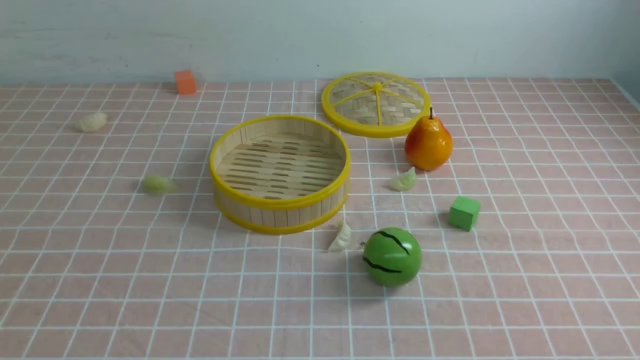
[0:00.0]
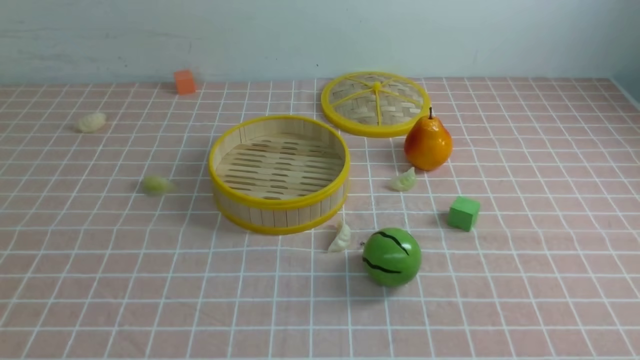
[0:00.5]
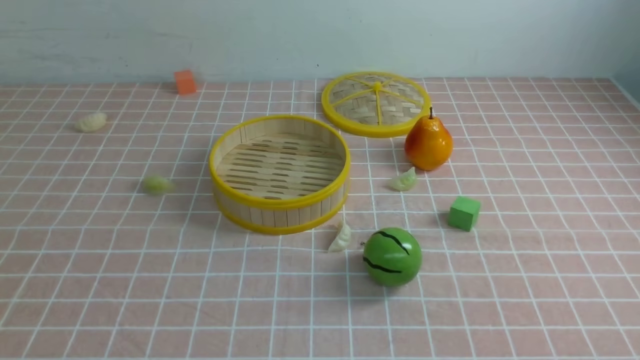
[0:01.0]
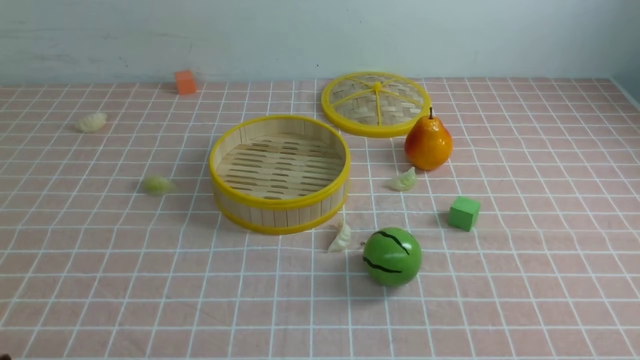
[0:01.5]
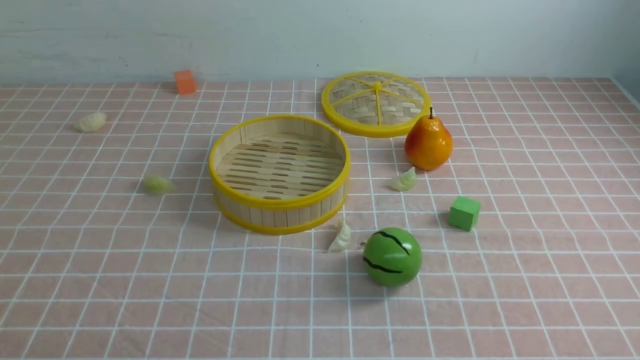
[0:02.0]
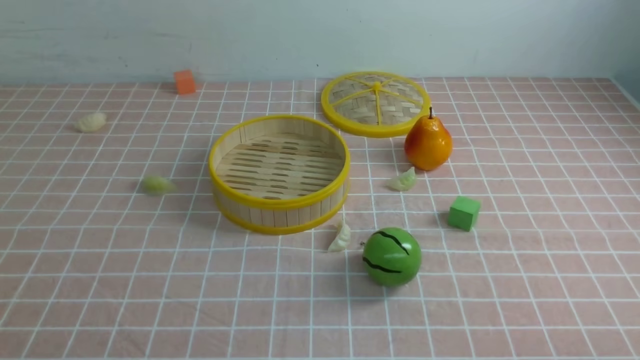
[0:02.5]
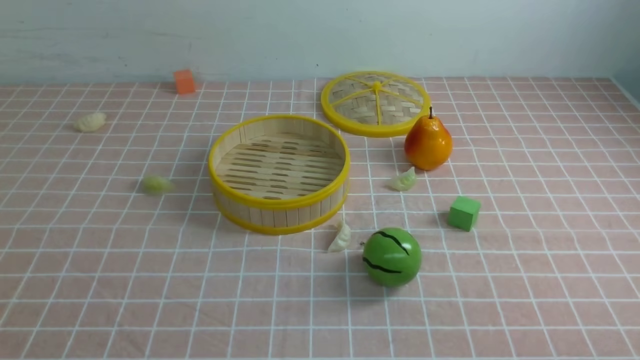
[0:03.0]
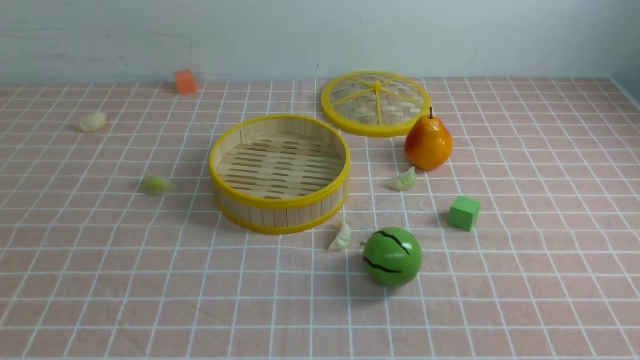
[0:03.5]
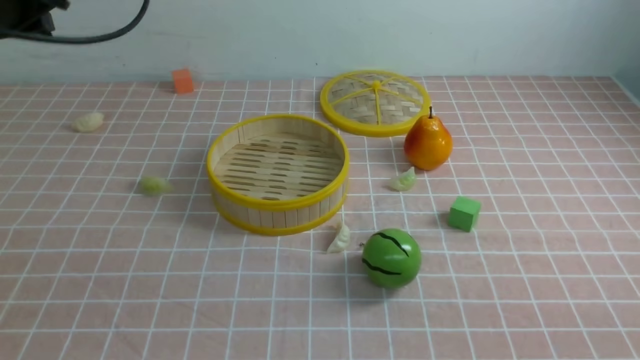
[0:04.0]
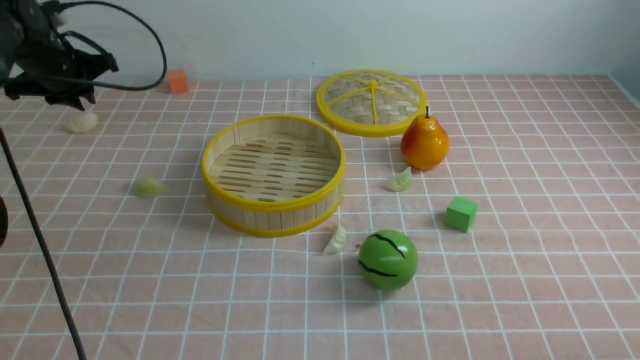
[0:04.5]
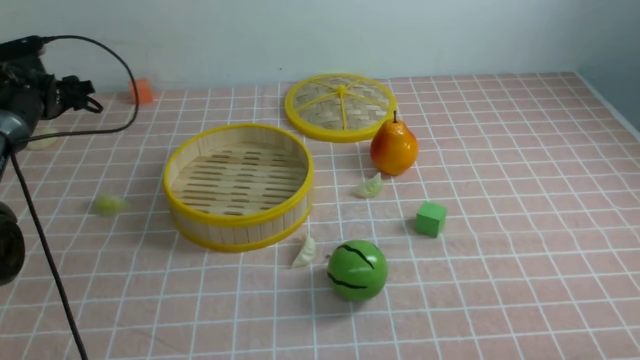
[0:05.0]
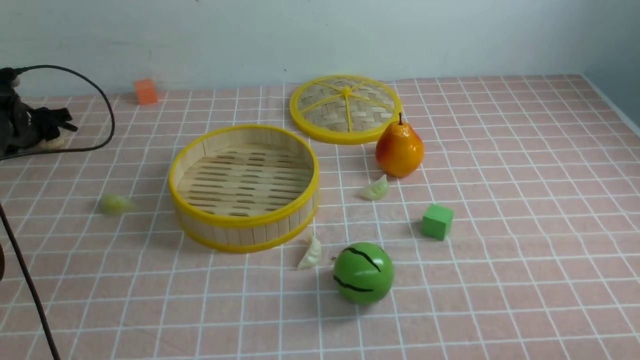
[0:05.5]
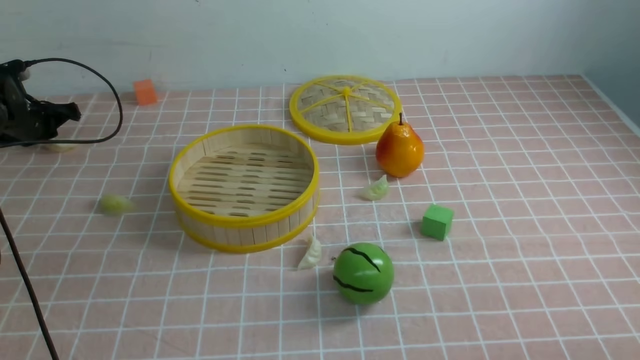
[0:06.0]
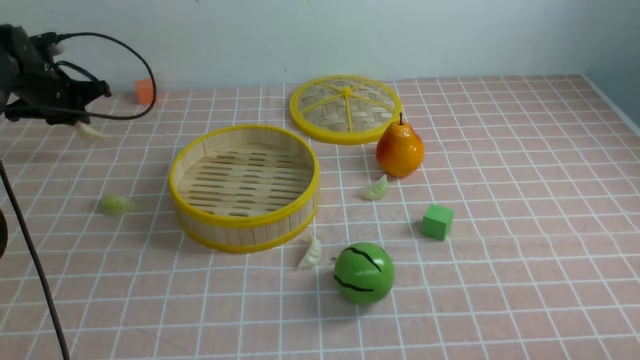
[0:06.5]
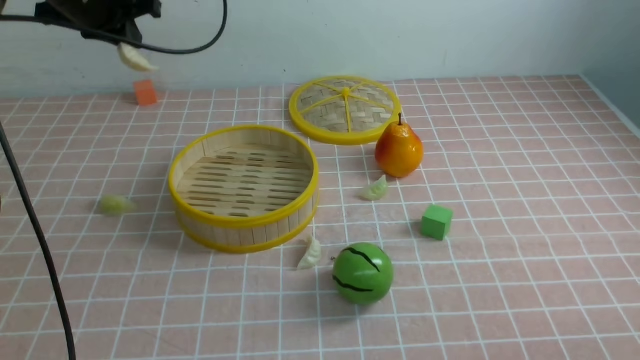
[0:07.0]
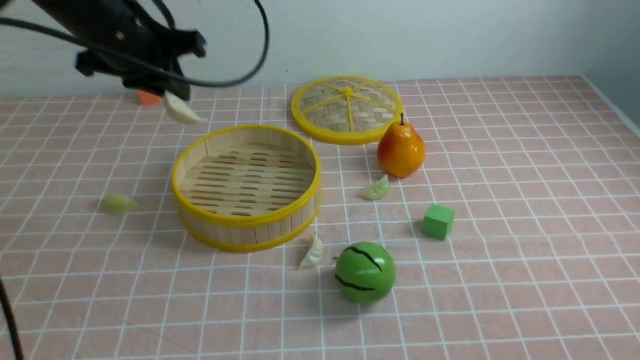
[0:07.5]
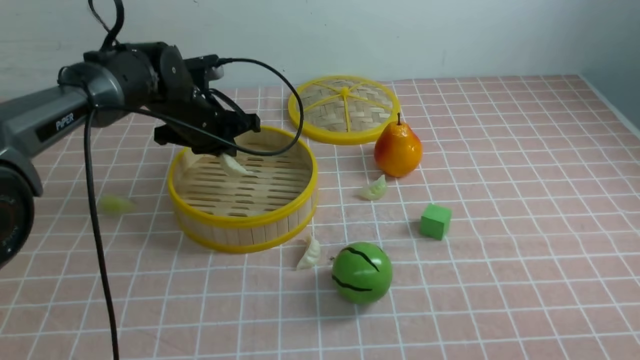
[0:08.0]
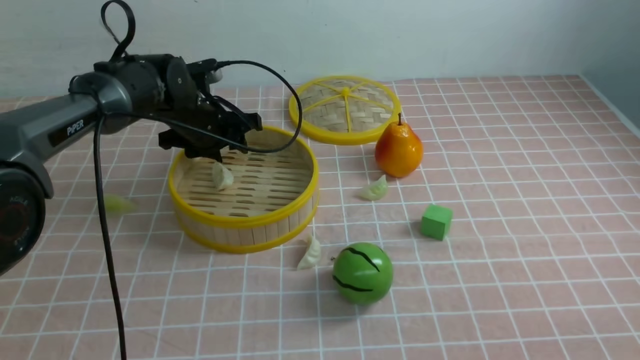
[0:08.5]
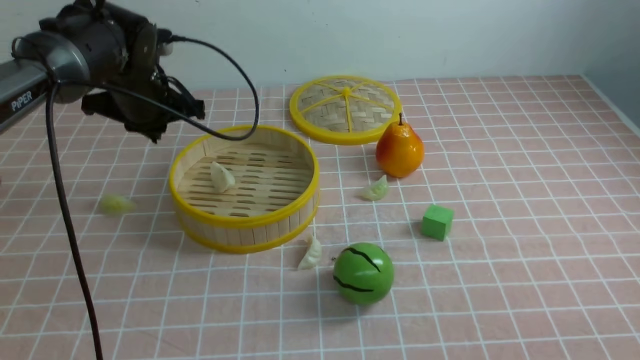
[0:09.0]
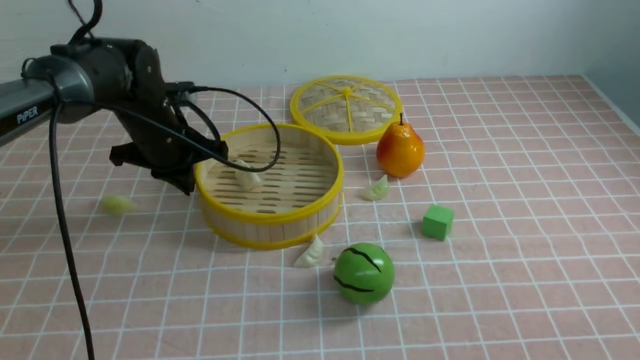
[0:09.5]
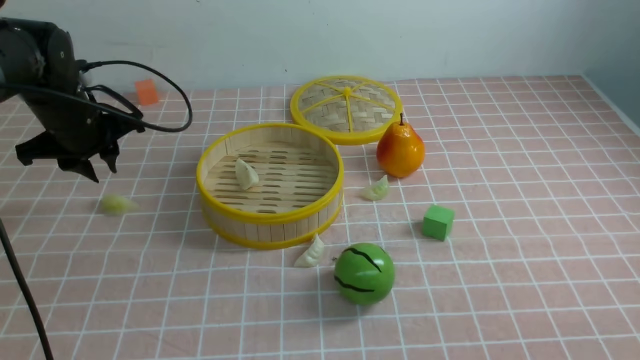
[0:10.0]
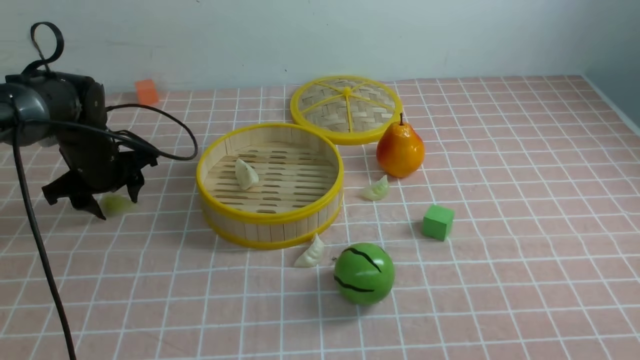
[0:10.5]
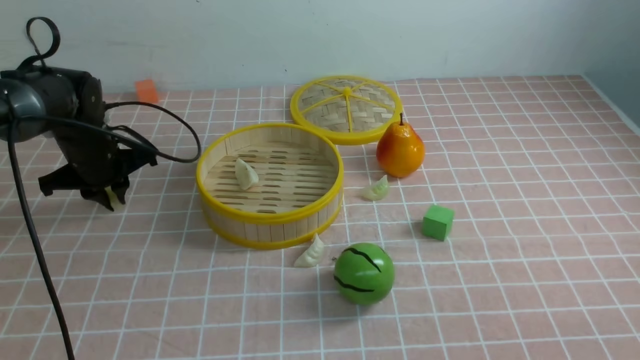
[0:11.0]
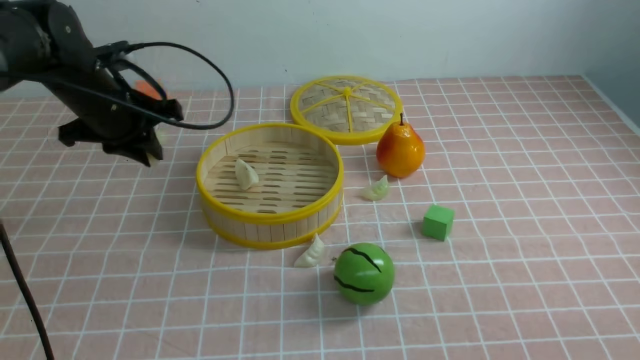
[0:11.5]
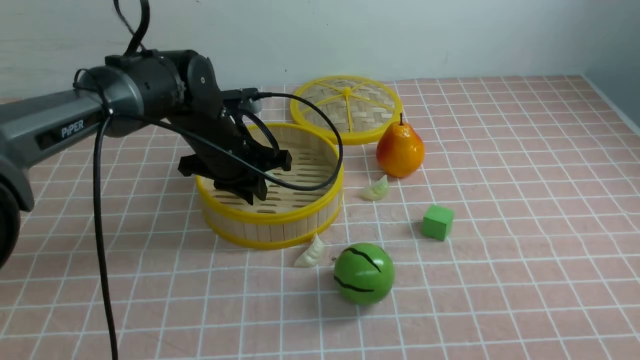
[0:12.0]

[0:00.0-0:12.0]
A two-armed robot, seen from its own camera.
Task of the whole recording: put the dumplings into the steamer on the table with the pink tablecloth.
Step, 0:00.0 to 0:06.0: use the left arm to grab a dumpling.
Step, 0:06.5 to 0:08.0: use the left arm to put the dumpling into the steamer.
Step, 0:08.5 to 0:11.0: use the left arm to grab a dumpling.
0:02.0 to 0:04.0: The left gripper is displaced forward and upward by some 35 cm, and closes its fingers.
0:04.0 to 0:06.0: The right gripper heads downward, covering about 5 cm; the left gripper goes some 35 cm downward, forward and to the left, and opens, then closes once more.
0:06.0 to 0:08.0: The left gripper moves to the right, some 30 cm.
0:08.0 to 0:10.0: The left gripper is displaced to the left by about 10 cm.
0:10.0 to 0:12.0: The left gripper heads to the right, covering about 15 cm, and opens, then closes again.

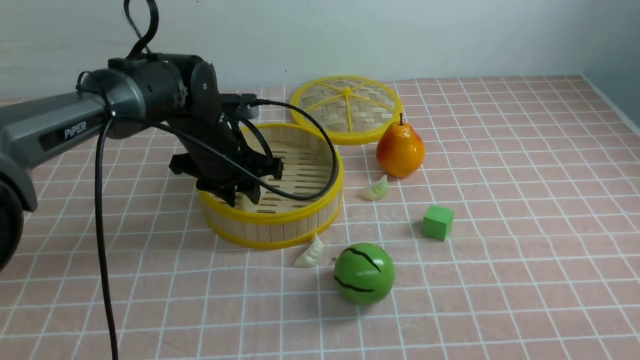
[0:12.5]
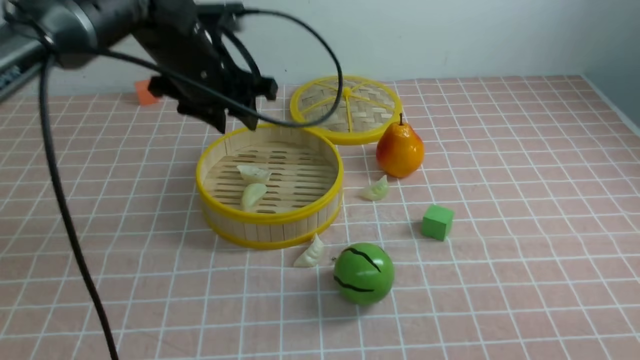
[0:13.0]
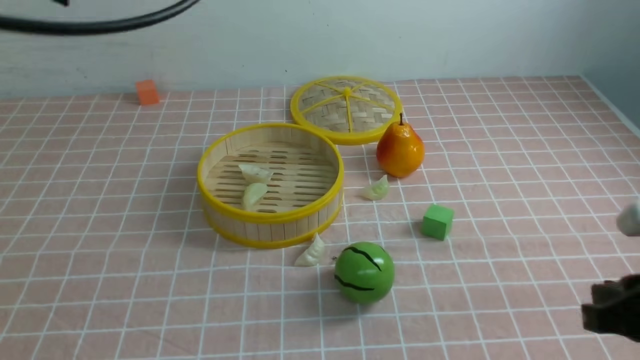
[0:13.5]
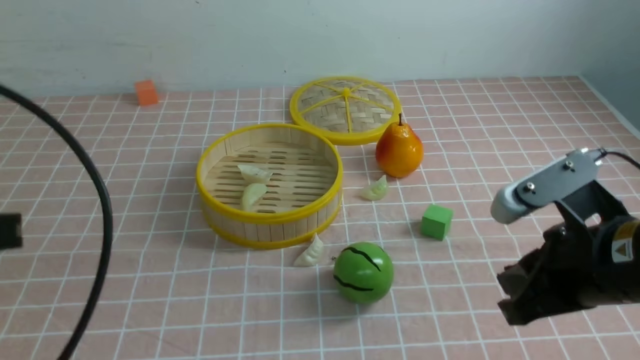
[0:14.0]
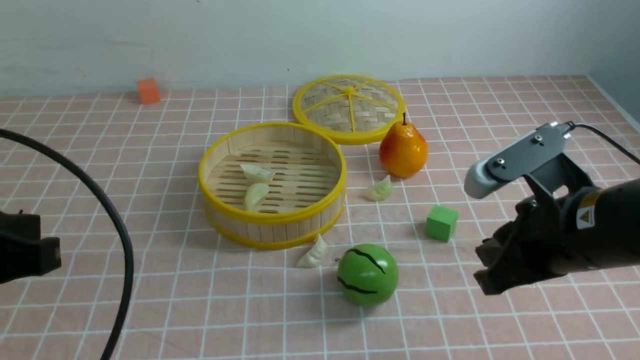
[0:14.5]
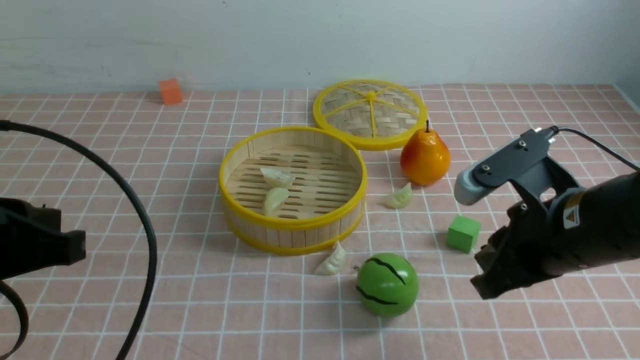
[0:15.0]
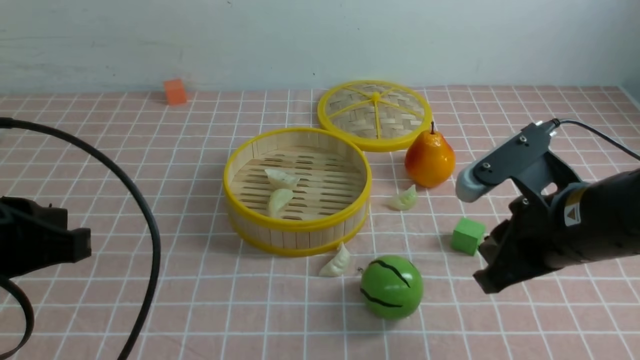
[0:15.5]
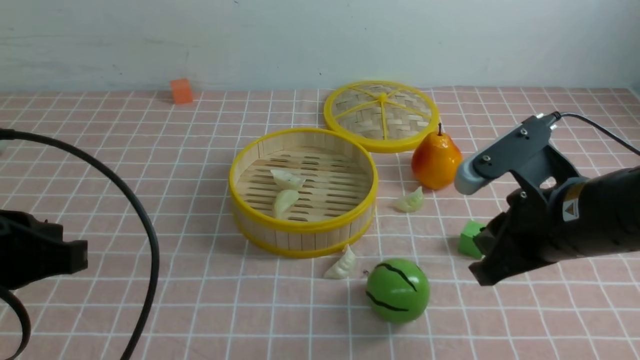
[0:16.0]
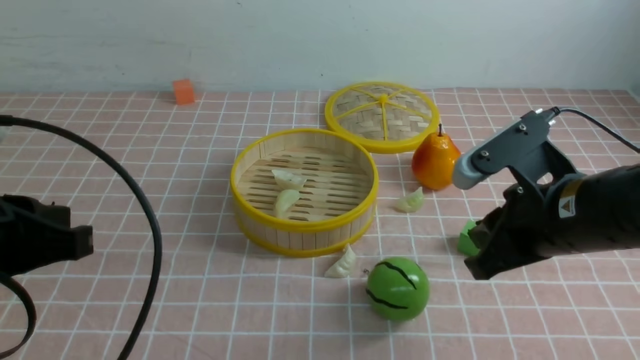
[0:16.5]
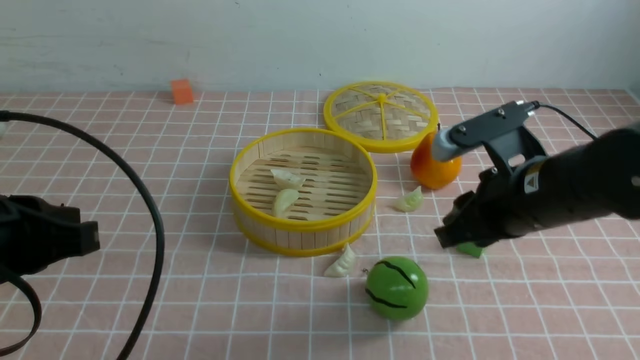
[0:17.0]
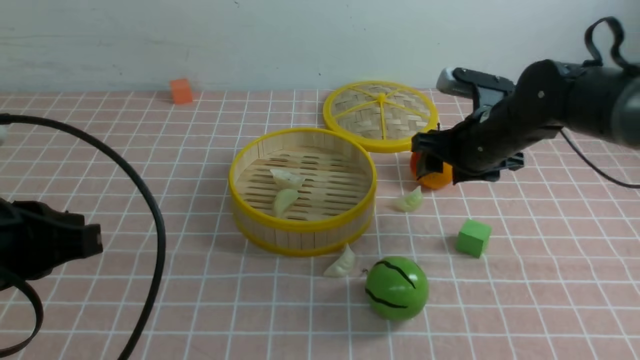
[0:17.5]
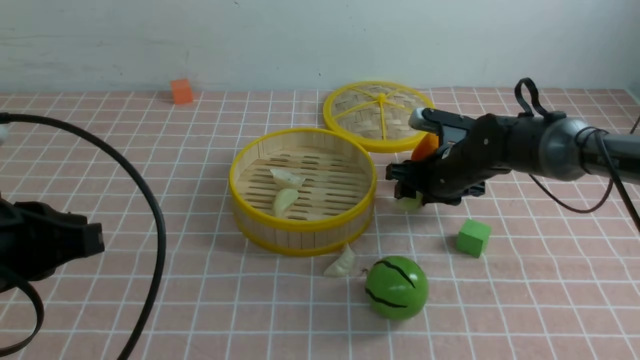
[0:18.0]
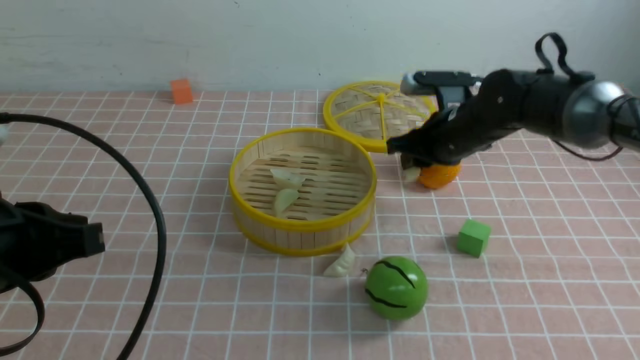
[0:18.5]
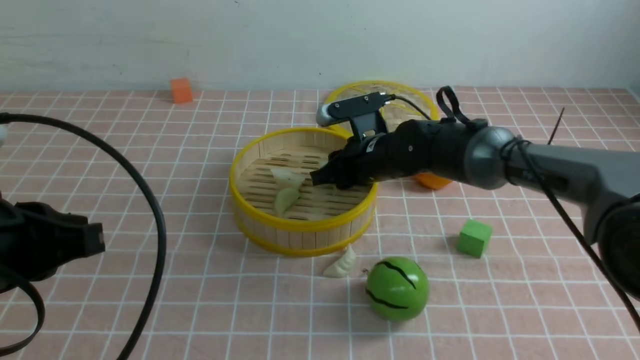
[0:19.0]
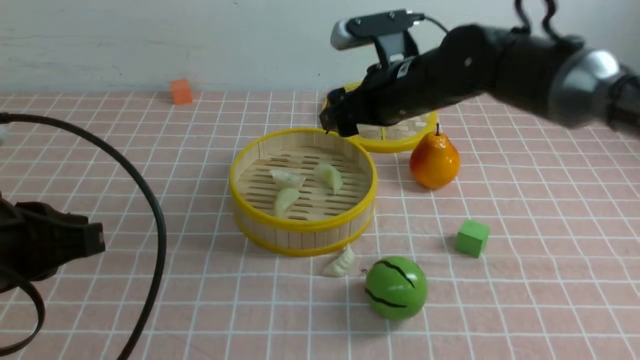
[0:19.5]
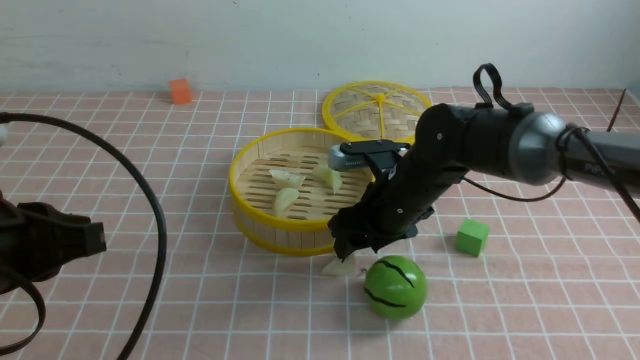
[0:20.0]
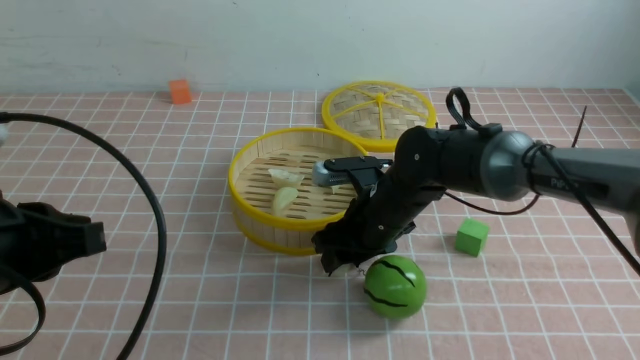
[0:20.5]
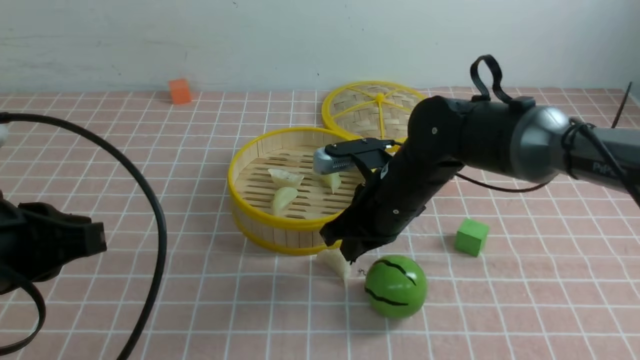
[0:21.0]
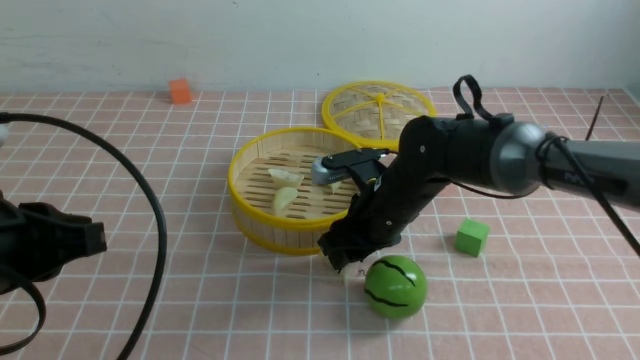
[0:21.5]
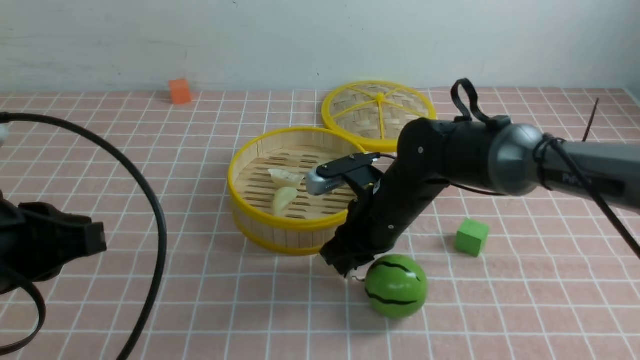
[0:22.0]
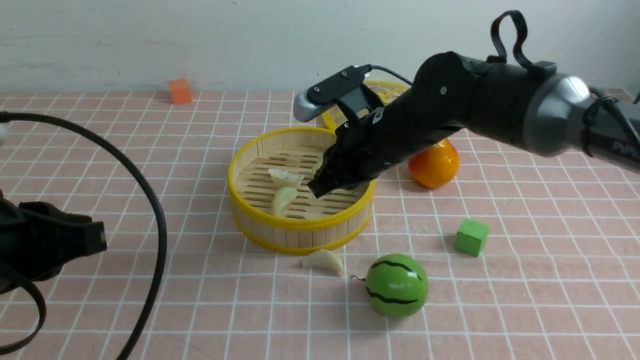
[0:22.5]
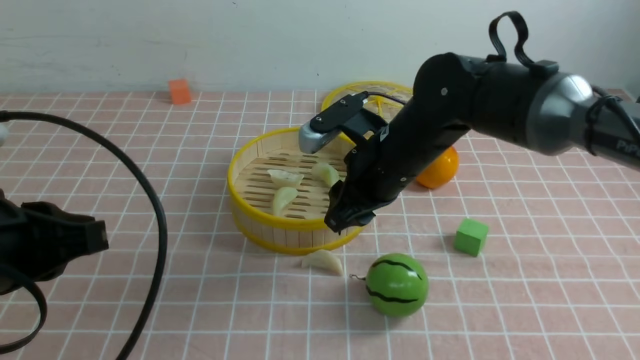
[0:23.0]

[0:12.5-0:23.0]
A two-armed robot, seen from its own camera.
Task of the whole recording: put the dumplings into the steamer on the table with the pink tablecloth.
Step, 0:13.0 to 0:18.0: use the right arm to grab a dumpling.
Step, 0:18.5 to 0:19.0: use the right arm to put the dumpling into the steamer.
0:12.5 to 0:14.5: The left gripper shifts roughly 30 cm backward, and closes up; the right gripper goes approximately 15 cm forward and to the left.
0:16.5 to 0:19.0: The right gripper is displaced forward and to the left by some 25 cm, and opens and closes again.
0:19.0 to 0:21.0: The right gripper moves backward, approximately 10 cm, and opens, then closes again.
